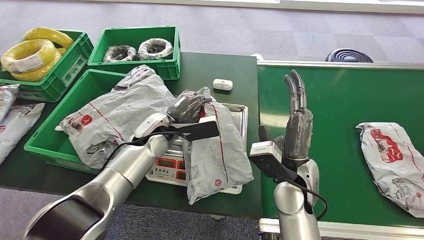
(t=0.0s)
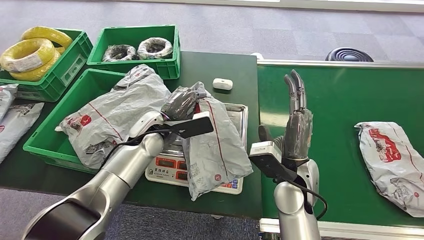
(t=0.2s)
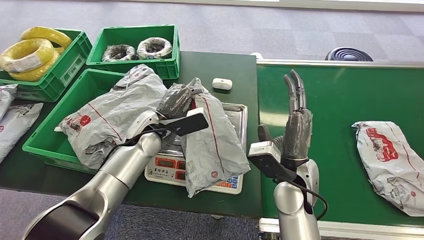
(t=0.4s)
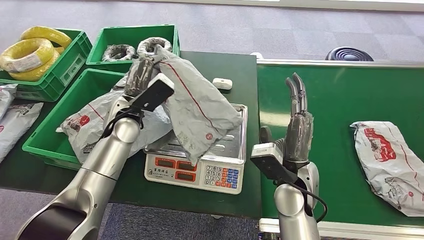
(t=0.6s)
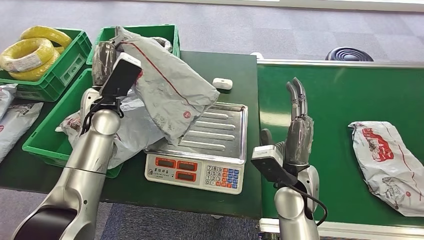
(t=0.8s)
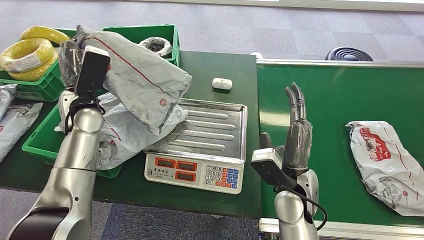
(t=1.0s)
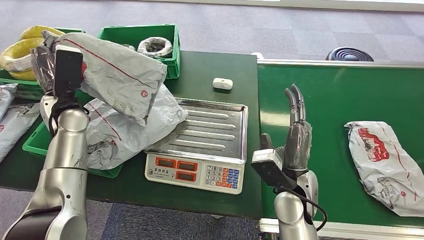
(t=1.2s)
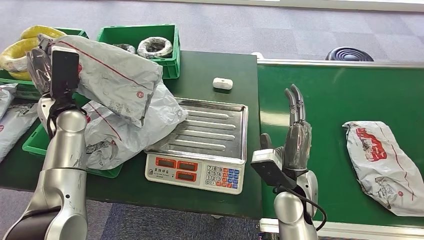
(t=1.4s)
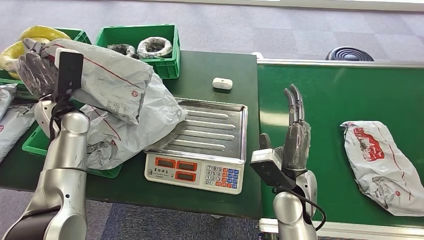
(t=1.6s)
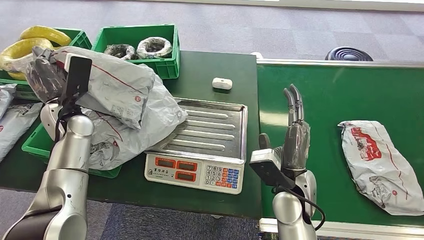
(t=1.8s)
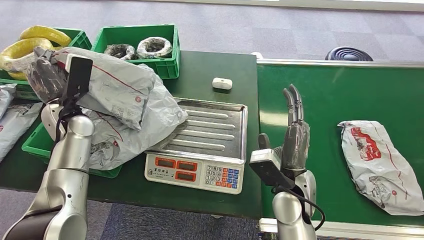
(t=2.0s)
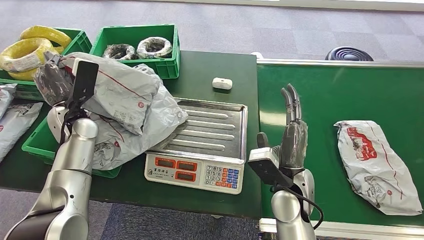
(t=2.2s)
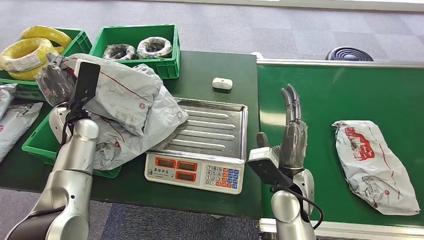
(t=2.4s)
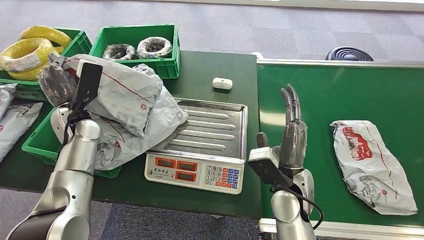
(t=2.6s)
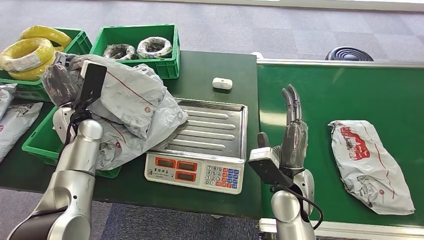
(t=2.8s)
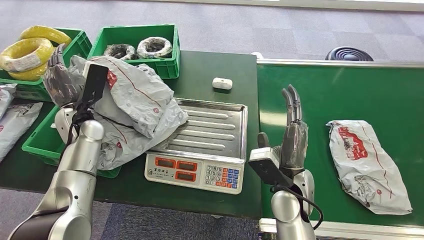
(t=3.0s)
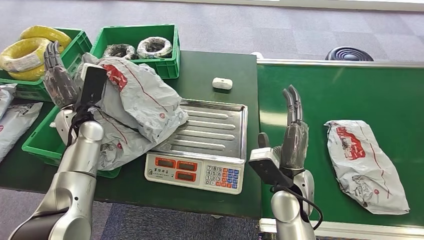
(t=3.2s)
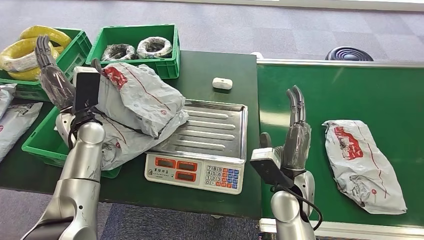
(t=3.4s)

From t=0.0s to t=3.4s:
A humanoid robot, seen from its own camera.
Step, from t=0.8s to t=3.4s: Place the package into the parcel locker.
